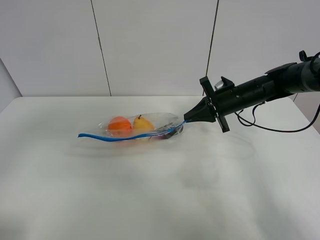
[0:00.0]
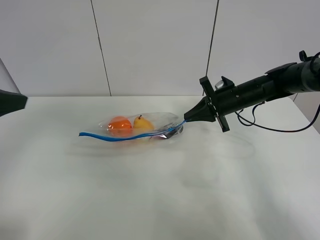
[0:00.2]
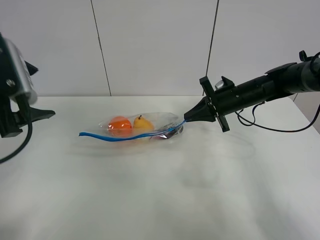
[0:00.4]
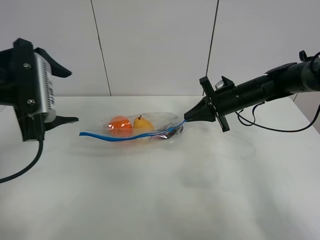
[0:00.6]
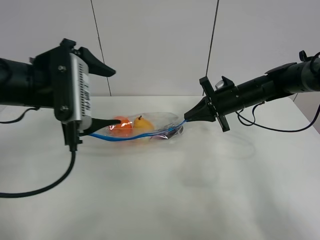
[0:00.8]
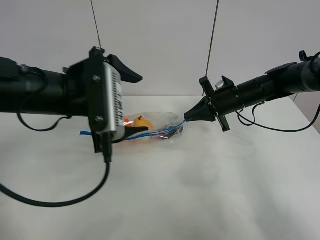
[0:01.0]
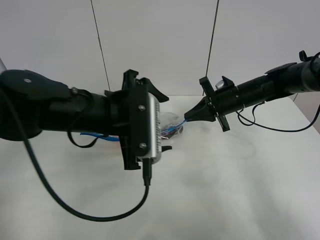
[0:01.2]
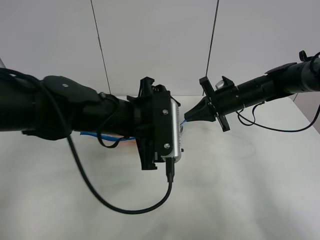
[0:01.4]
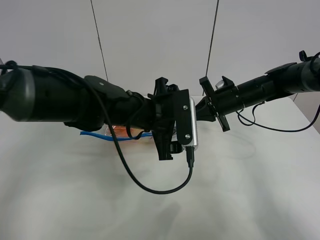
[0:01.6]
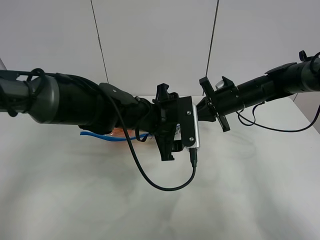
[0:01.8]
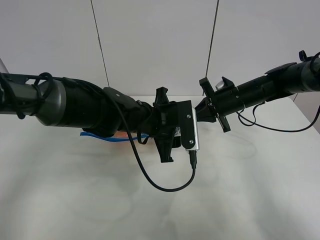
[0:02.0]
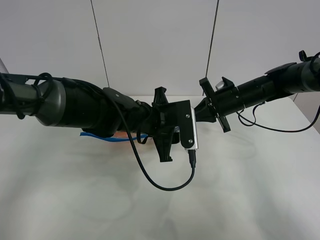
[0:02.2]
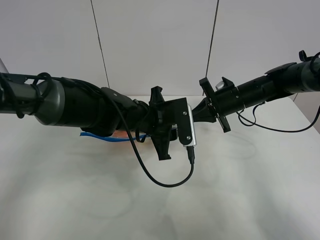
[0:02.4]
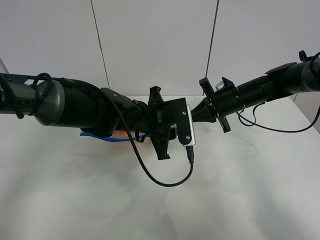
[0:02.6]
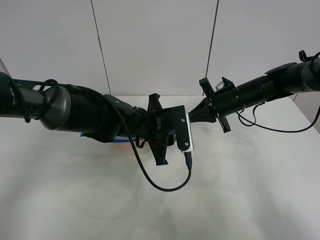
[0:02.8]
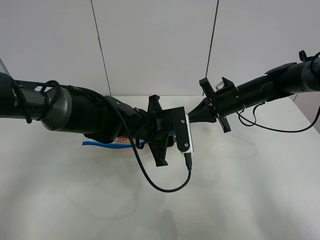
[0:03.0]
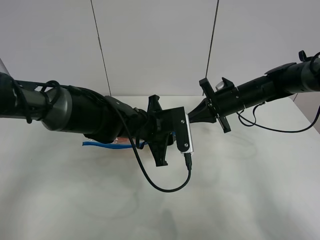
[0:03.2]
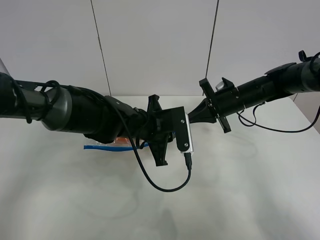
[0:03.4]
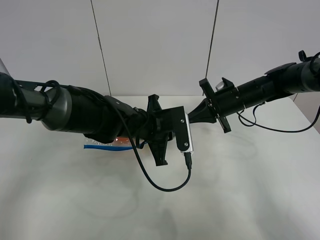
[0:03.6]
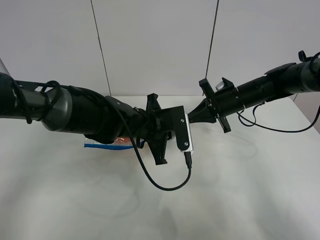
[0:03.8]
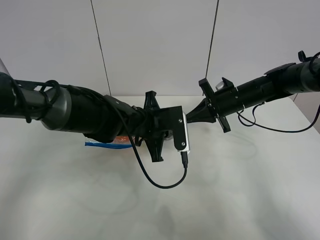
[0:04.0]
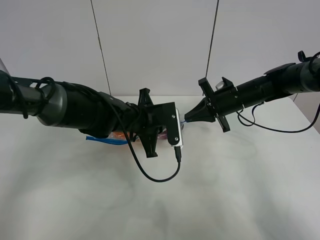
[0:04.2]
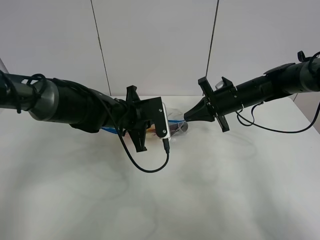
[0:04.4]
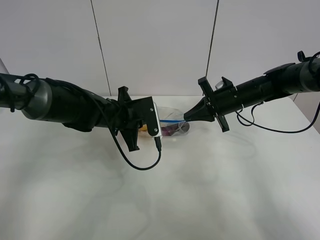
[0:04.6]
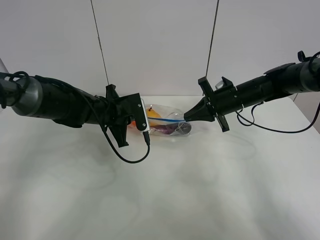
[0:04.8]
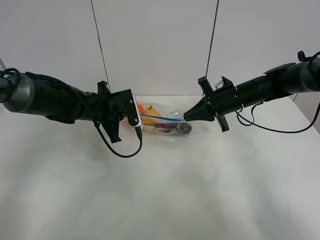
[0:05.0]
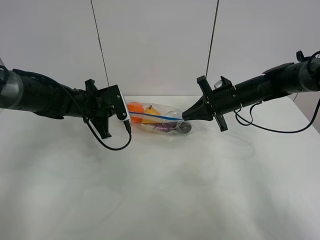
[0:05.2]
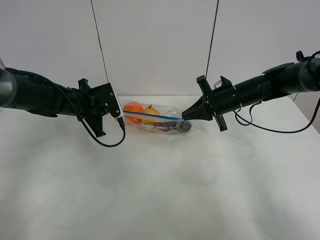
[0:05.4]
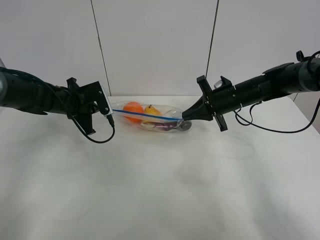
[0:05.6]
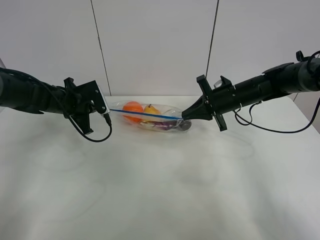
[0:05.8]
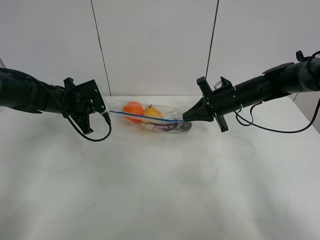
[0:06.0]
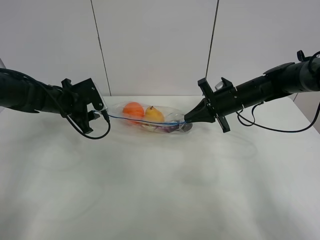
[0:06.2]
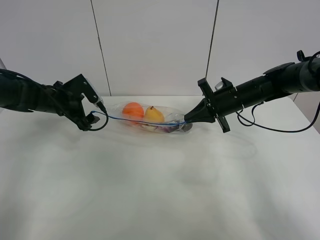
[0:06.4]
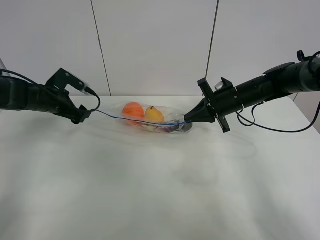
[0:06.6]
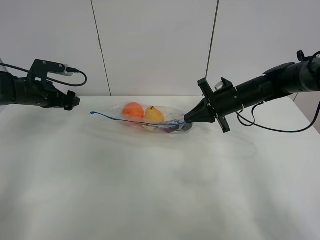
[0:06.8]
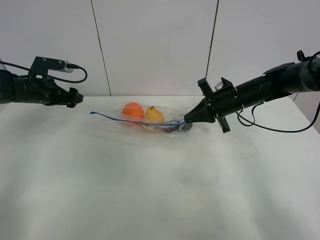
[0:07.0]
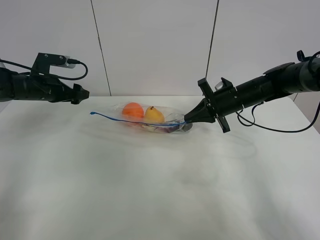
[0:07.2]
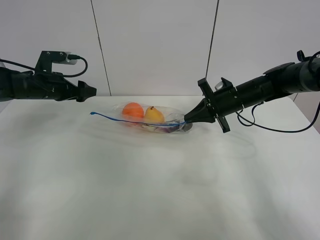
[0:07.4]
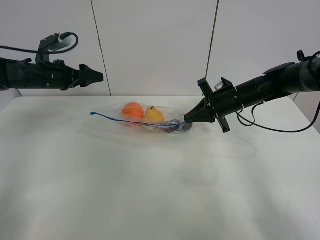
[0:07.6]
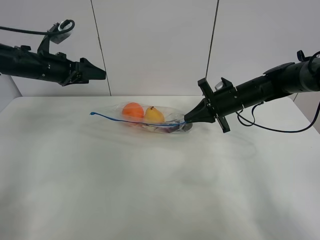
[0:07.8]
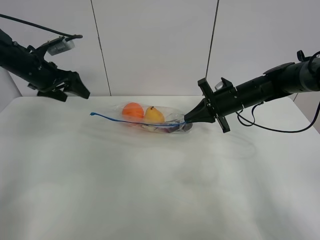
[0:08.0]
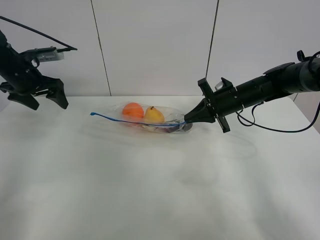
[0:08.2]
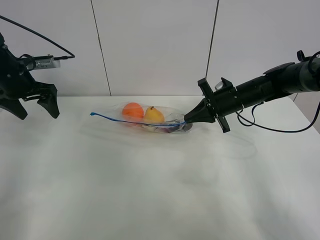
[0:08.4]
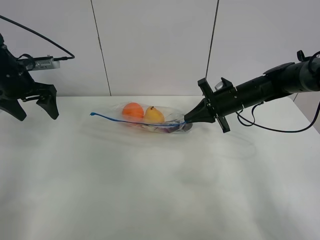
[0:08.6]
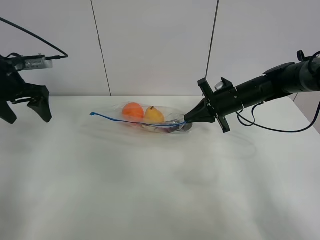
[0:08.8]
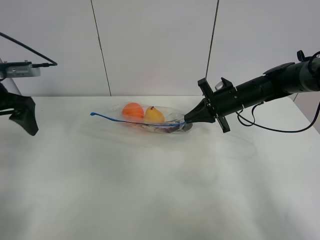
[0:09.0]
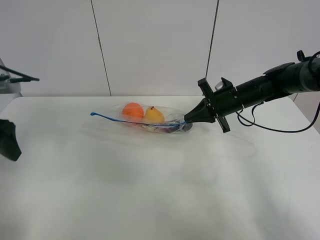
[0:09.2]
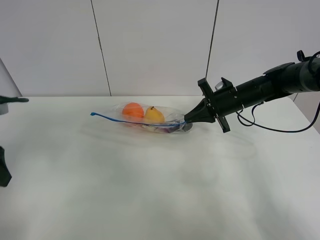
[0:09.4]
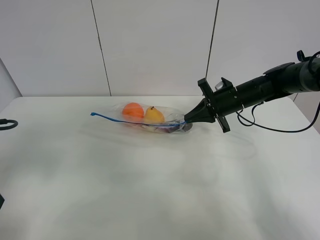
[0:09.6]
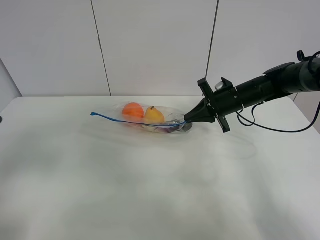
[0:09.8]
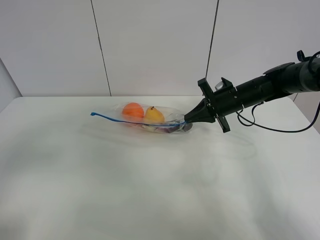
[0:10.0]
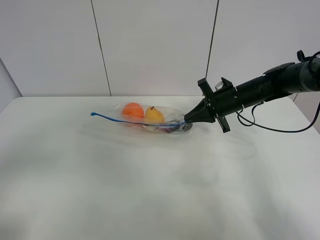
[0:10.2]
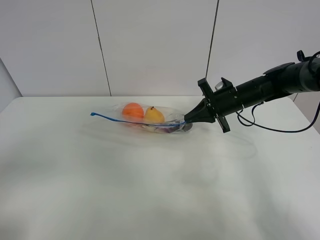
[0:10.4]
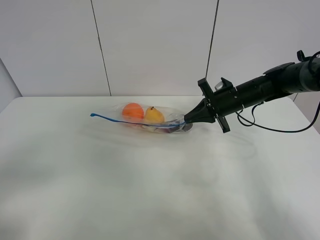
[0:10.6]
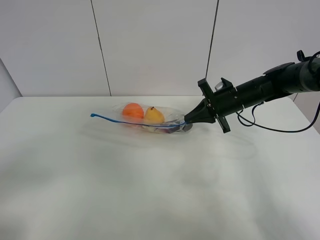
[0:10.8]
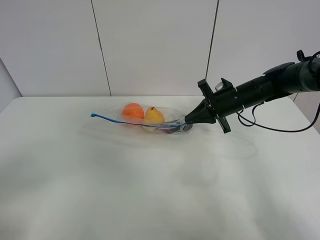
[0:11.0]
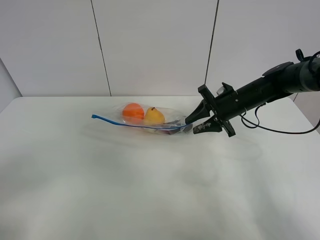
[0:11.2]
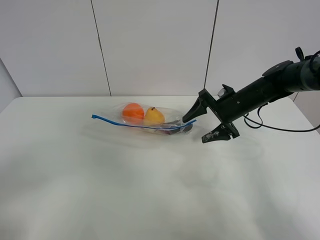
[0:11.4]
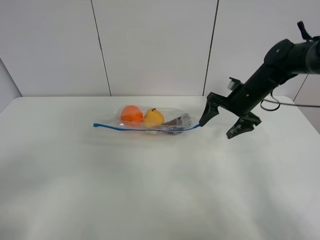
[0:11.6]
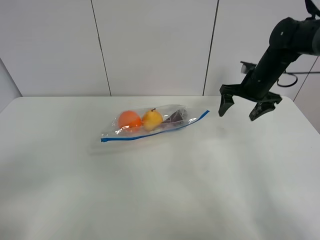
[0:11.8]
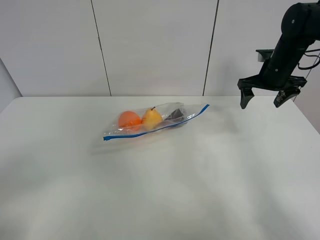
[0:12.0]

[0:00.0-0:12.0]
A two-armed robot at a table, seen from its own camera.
Step, 0:00.0 to 0:06.4: Pull the fruit bag with left gripper.
0:00.0 to 0:01.6: The left gripper moves to the right, forward and downward, roughly 35 cm.
0:01.6 to 0:03.0: The left gripper shifts by about 5 cm, and closes.
0:03.0 to 0:04.4: The left gripper moves to the left, approximately 5 cm, and closes its fingers.
0:04.4 to 0:06.0: The left gripper is displaced to the left by approximately 15 cm.
0:06.0 to 0:07.6: The left gripper heads upward, covering roughly 5 cm, and opens its fingers.
0:07.6 to 0:09.0: The left gripper goes some 15 cm backward and upward.
0:09.0 to 0:10.4: The left gripper goes approximately 30 cm backward.
0:10.4 to 0:12.0: The right gripper shifts some 10 cm to the right and upward, and opens.

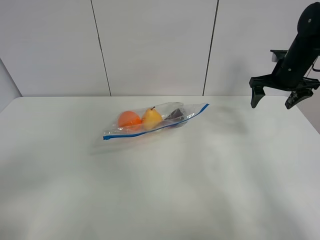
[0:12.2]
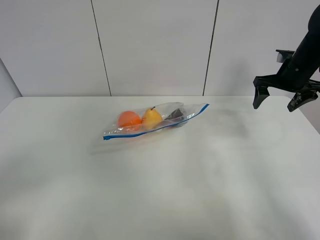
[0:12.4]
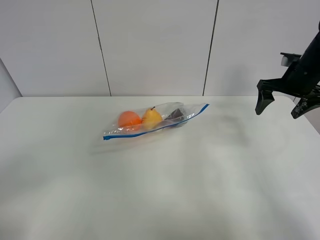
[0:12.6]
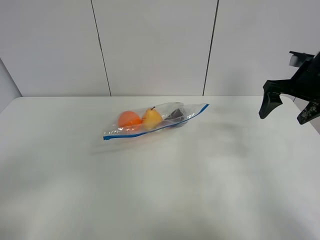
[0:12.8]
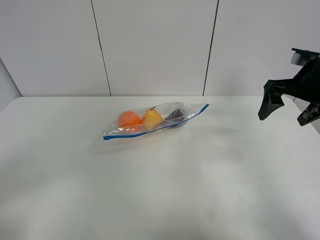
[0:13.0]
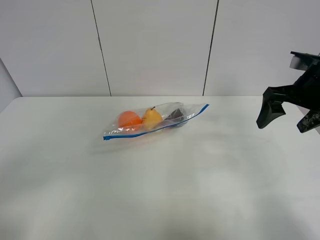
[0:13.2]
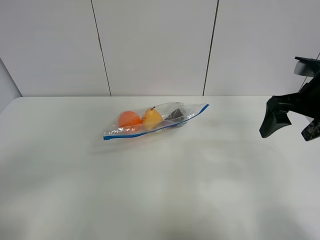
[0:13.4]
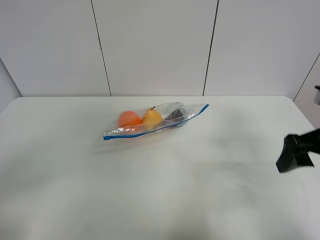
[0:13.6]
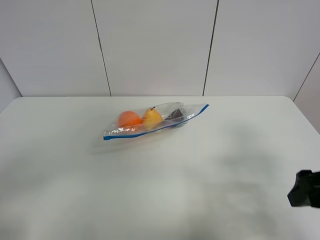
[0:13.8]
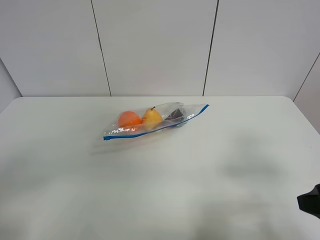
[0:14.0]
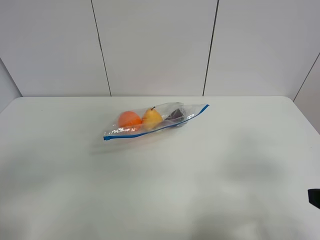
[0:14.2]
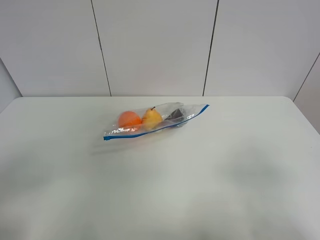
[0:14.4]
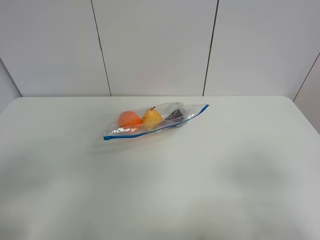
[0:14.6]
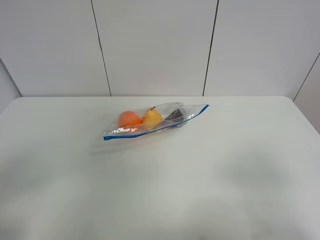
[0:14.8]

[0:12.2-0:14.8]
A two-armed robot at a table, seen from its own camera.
0:12.2 to 0:13.4: The right gripper heads backward, covering approximately 20 cm.
0:13.4 to 0:14.8: The right gripper is displaced backward by approximately 25 cm.

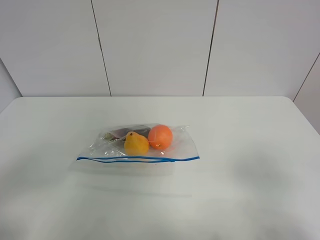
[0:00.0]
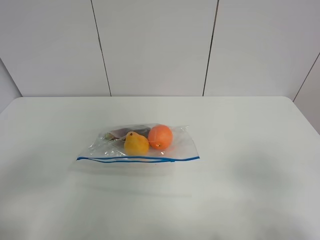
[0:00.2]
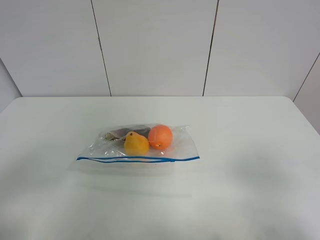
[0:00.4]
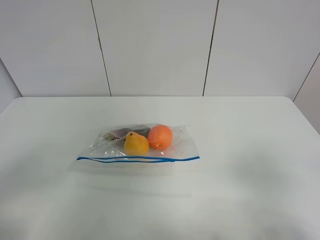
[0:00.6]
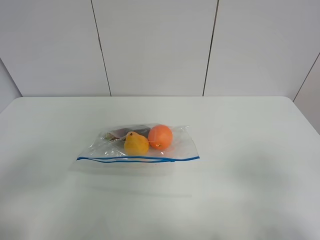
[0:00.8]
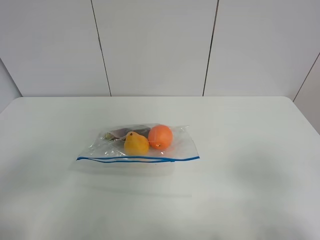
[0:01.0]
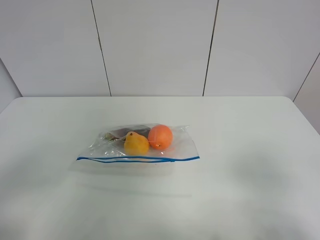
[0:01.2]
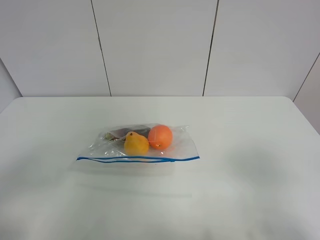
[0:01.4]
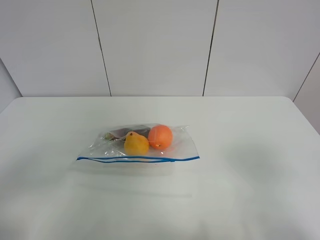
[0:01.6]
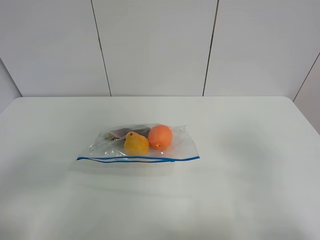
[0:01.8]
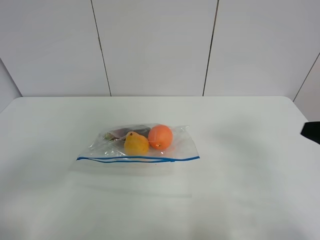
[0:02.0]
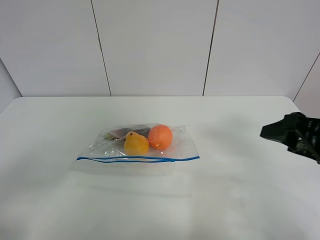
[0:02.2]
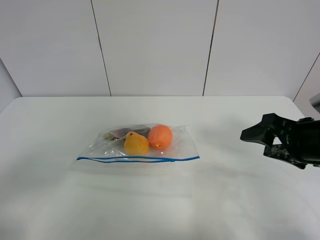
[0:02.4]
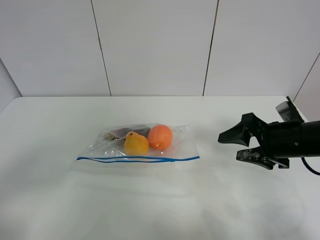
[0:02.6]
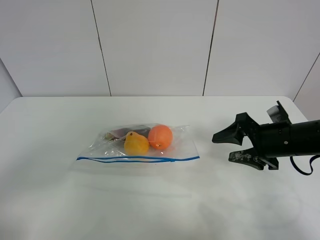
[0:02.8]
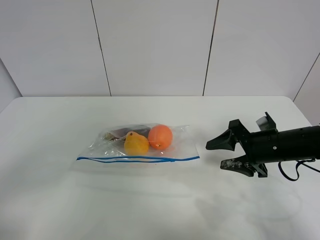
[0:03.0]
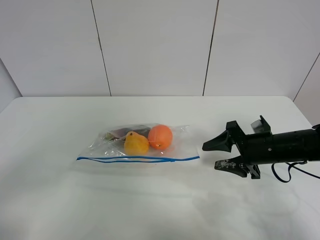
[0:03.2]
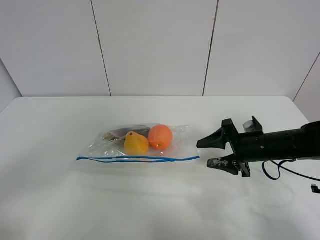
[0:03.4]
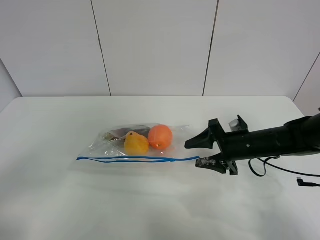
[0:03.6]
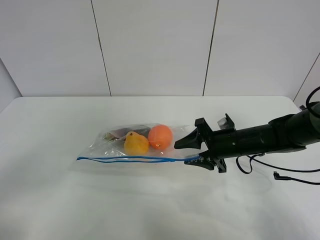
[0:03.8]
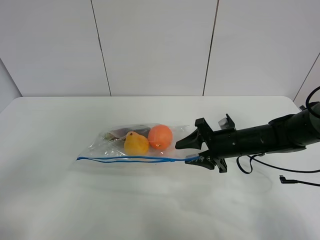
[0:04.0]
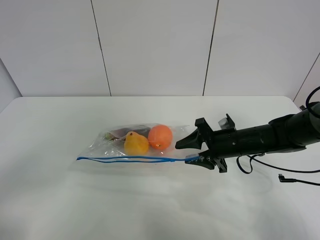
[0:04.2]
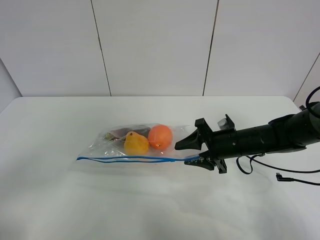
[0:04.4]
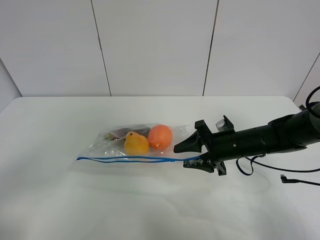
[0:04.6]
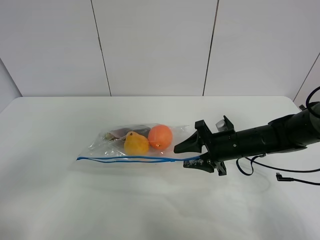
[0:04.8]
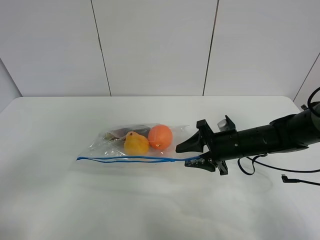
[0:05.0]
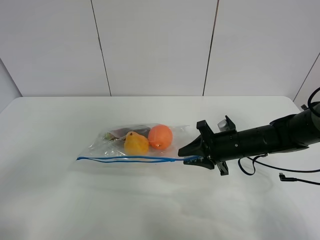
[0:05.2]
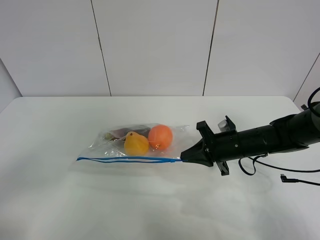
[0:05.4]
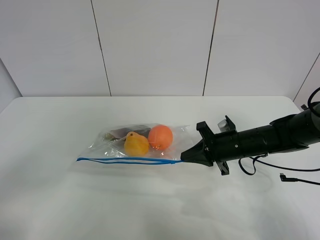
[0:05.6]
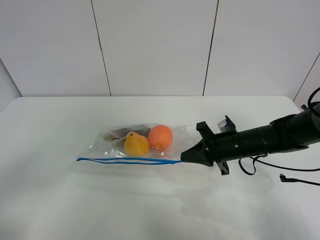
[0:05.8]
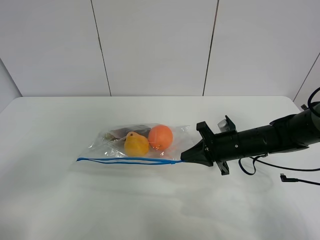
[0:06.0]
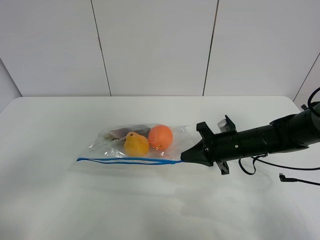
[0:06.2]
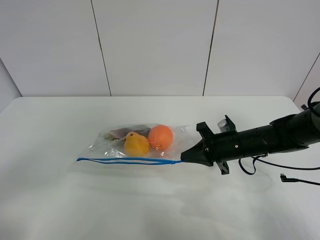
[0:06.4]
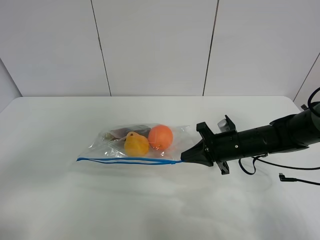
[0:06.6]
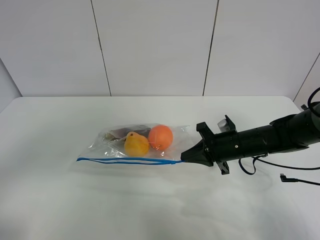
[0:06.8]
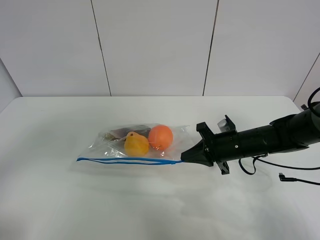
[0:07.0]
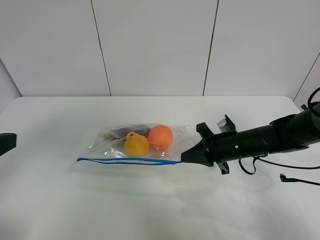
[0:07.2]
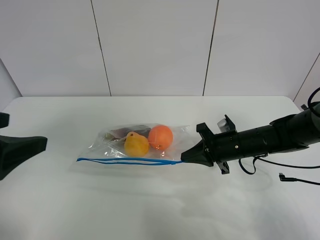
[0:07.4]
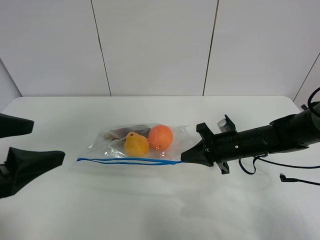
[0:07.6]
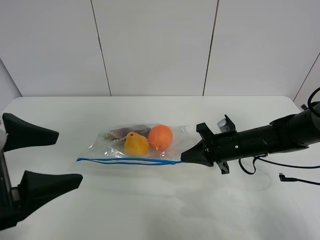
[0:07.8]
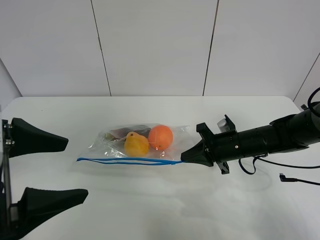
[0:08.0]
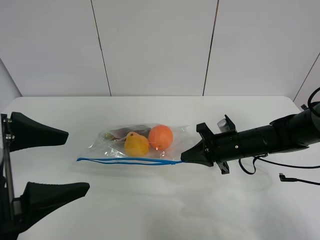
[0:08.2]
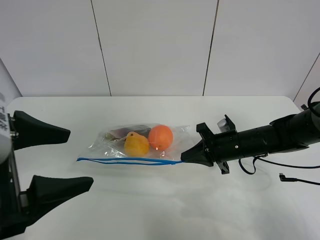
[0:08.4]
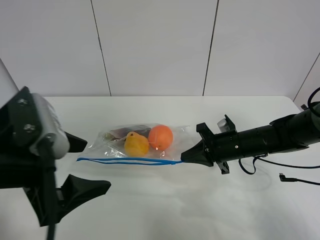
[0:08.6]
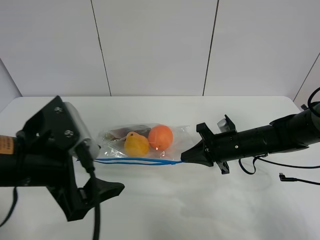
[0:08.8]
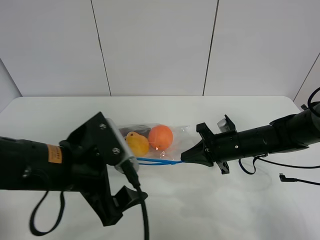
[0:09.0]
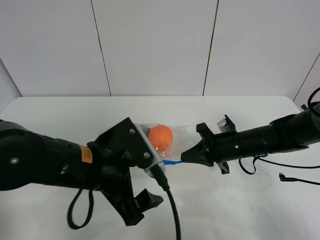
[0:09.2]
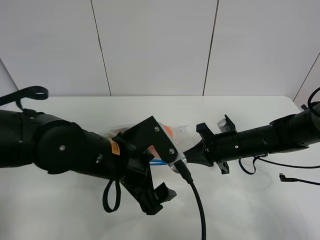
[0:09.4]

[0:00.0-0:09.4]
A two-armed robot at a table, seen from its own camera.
Step, 0:00.0 to 0:05.4: Grasp the fruit bag with right gripper.
0:01.6 to 0:03.2: The right gripper travels forward and downward by some 30 cm.
0:03.2 to 0:04.8: The right gripper is displaced to the left by about 5 cm.
0:04.8 to 0:06.2: The right gripper closes up.
0:06.2 to 0:07.8: The left gripper travels forward and to the right by about 15 cm.
0:07.8 to 0:09.4: The left gripper moves to the right, downward and forward, about 20 cm.
